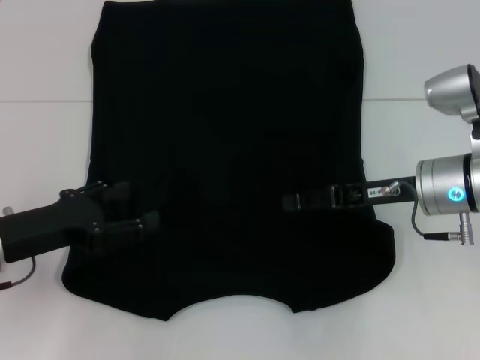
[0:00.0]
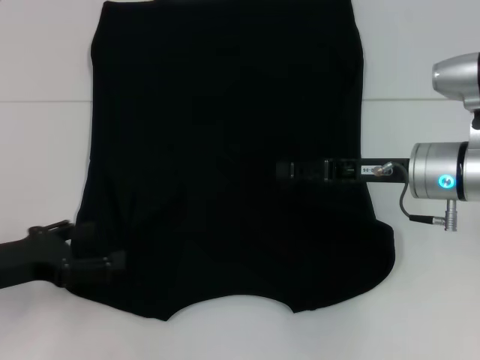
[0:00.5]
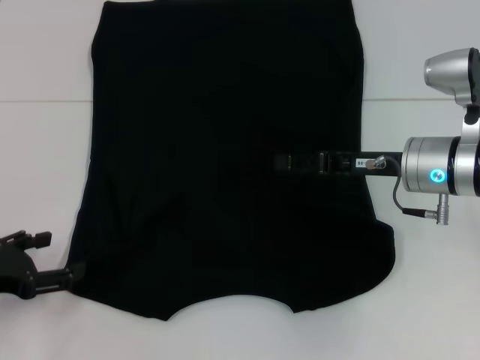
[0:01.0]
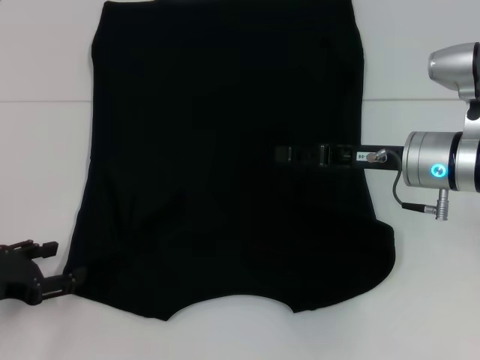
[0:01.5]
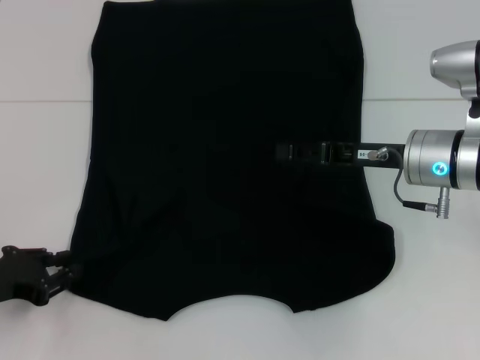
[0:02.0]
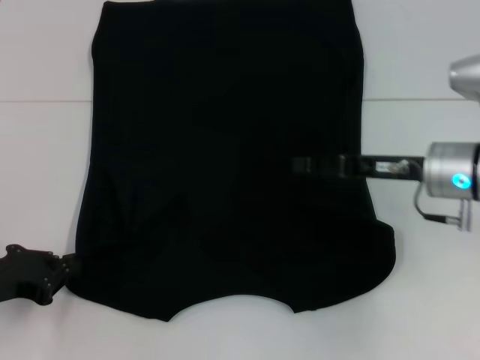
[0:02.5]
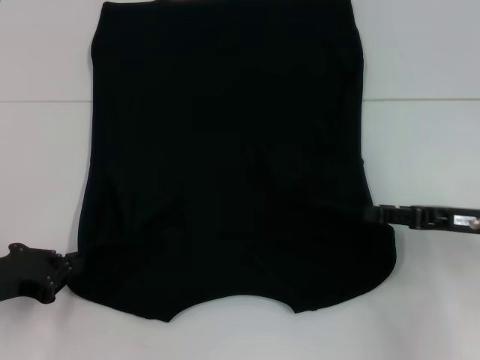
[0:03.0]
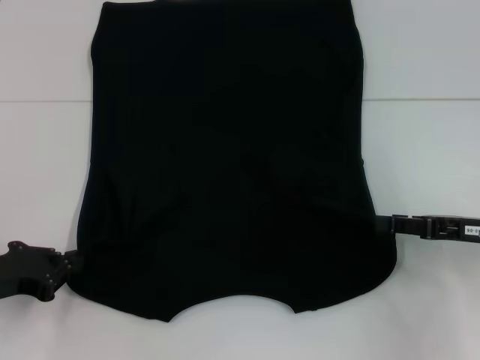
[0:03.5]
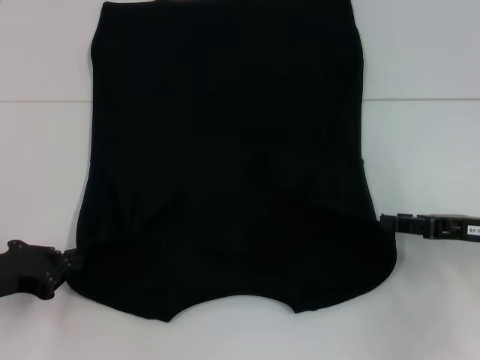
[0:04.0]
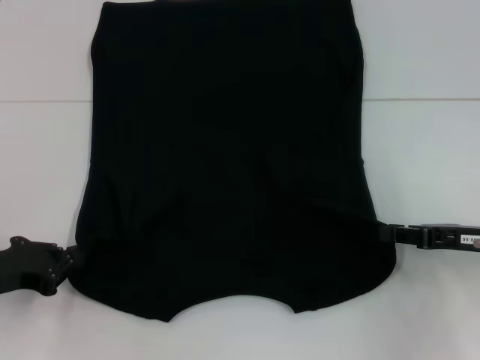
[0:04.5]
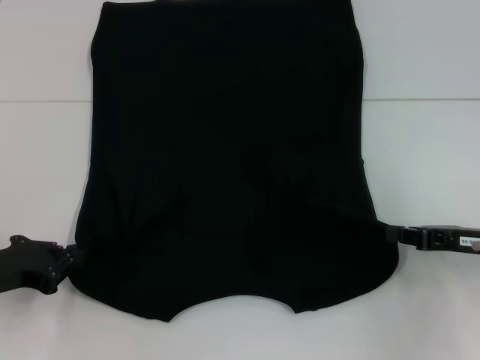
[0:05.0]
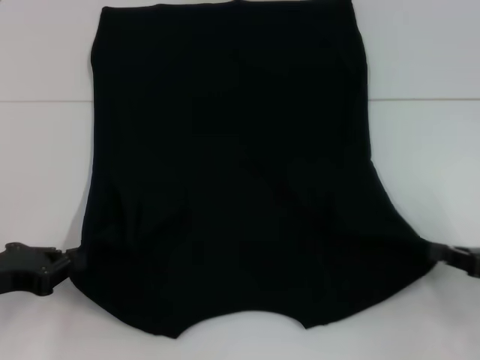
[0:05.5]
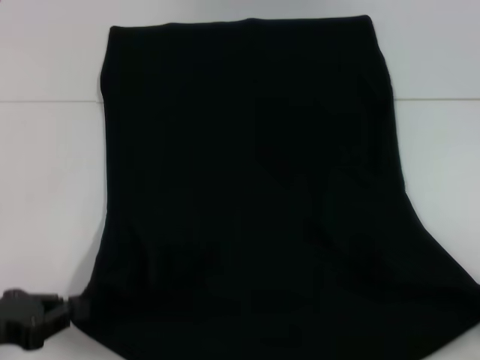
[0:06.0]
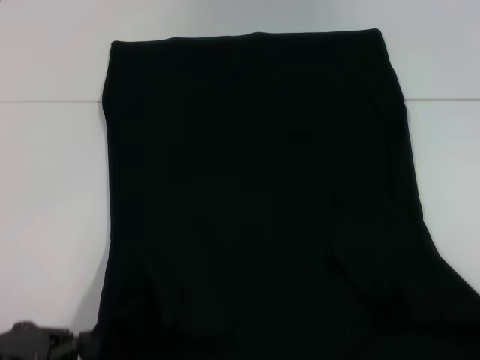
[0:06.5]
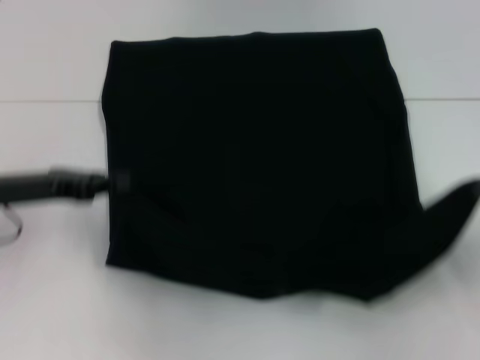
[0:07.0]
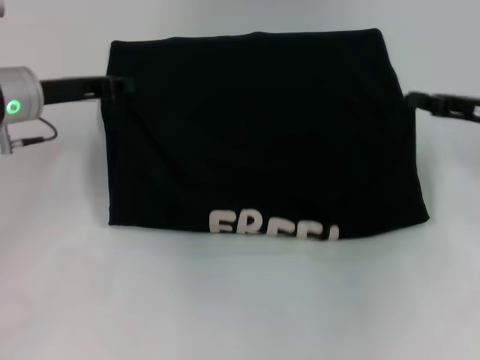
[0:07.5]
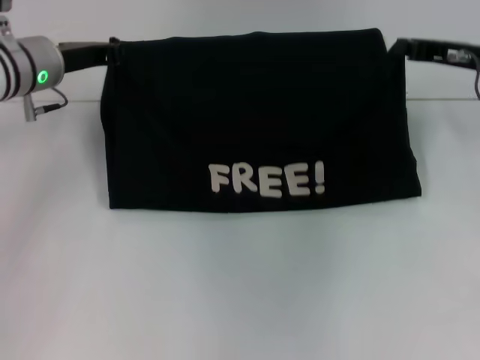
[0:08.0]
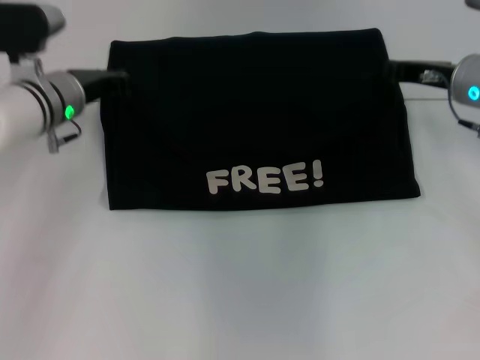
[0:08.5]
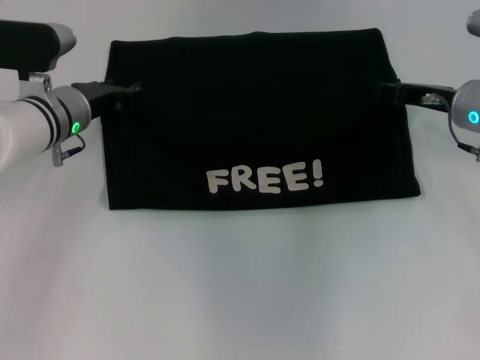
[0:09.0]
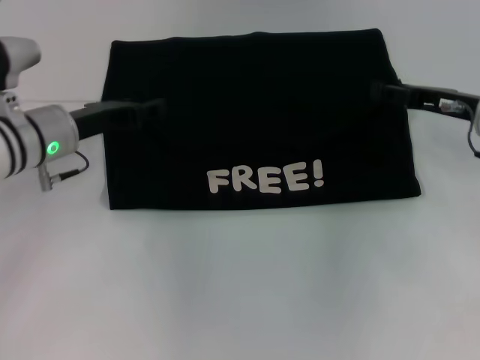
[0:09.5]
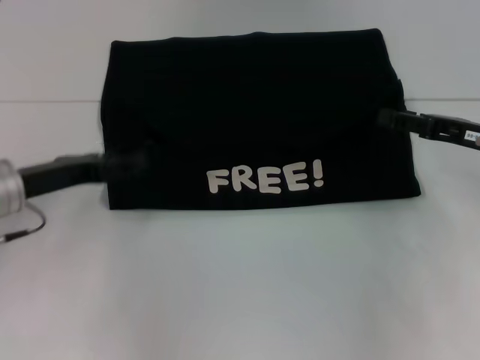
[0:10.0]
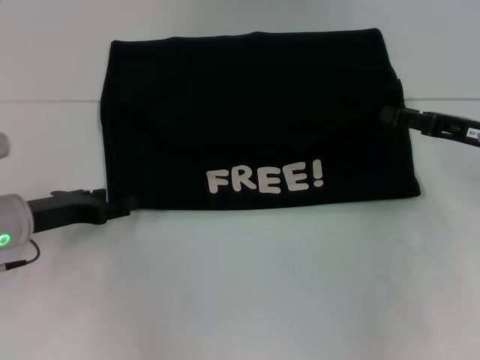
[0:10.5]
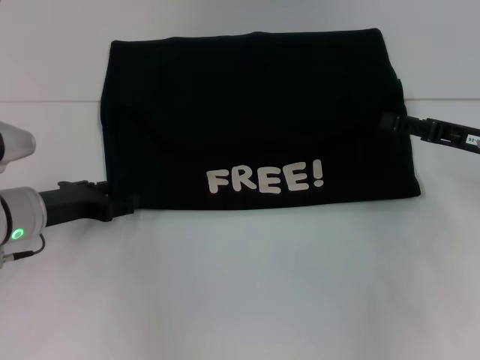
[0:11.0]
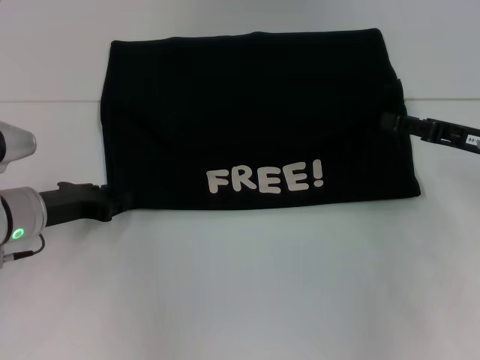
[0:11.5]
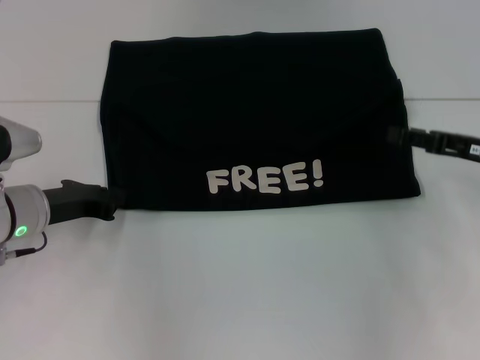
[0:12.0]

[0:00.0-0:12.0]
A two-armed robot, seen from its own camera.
Step, 0:00.5 to 0:02.5: Grab the bottom left corner with your left hand.
Step, 0:03.0 to 0:05.0: Grab the bottom right corner with your right hand.
Step, 0:05.5 to 0:09.0: Fold the clothes with your left hand.
Step, 0:05.5 to 0:09.0: Fold the clothes with your right hand.
0:00.0 to 0:02.0: The left gripper shifts by roughly 5 cm, and closes.
0:02.0 to 0:04.0: The left gripper closes, while the right gripper travels to the right and backward by roughly 15 cm.
0:04.0 to 0:06.0: The left gripper is displaced backward by some 5 cm, while the right gripper goes some 15 cm backward and to the right, and closes its fingers.
0:06.0 to 0:08.0: The right gripper moves forward, to the left and upward, roughly 30 cm; the left gripper heads forward, covering roughly 25 cm.
0:08.0 to 0:10.0: The left gripper travels backward and downward by some 15 cm, and opens its fingers; the right gripper heads backward, covering roughly 10 cm, and opens.
0:10.0 to 0:12.0: The left gripper closes its fingers.

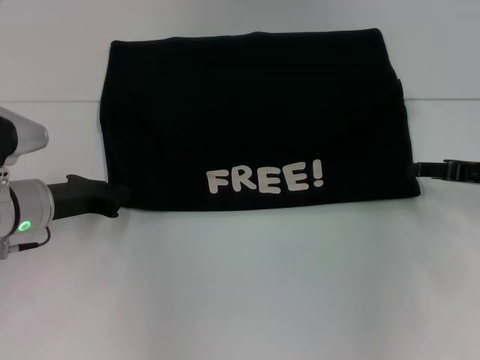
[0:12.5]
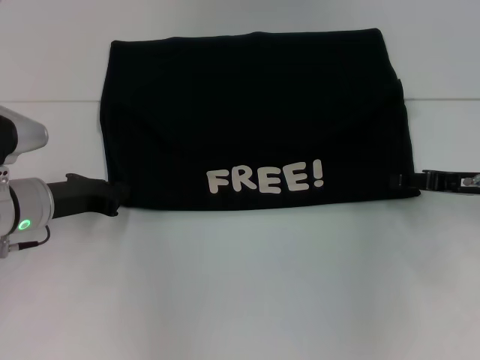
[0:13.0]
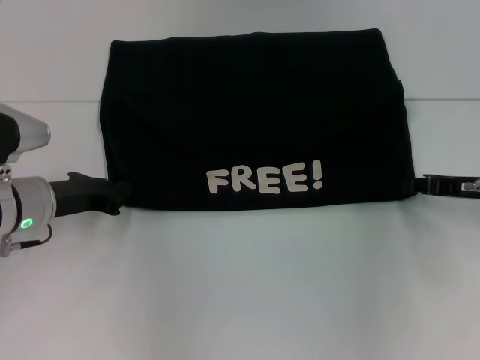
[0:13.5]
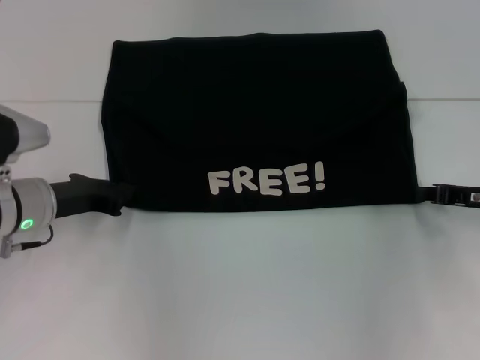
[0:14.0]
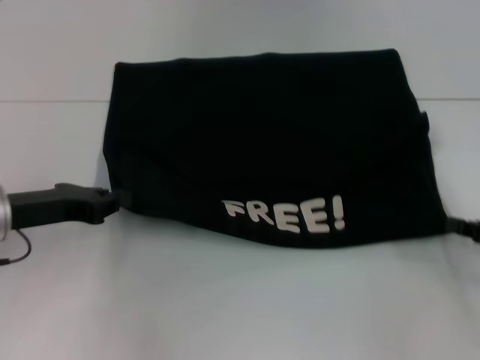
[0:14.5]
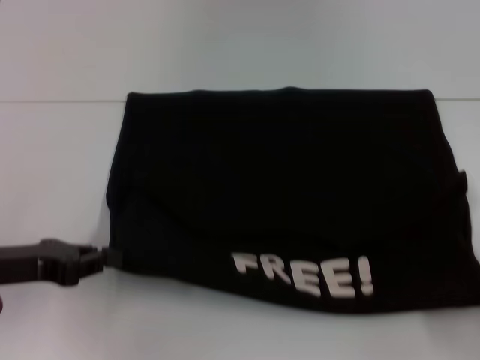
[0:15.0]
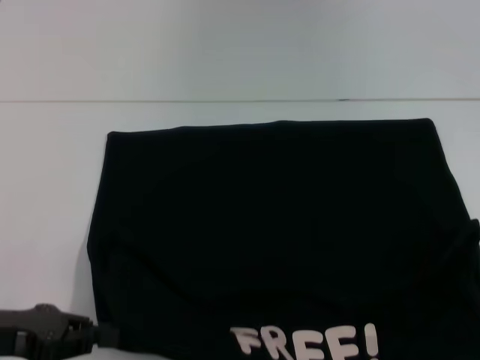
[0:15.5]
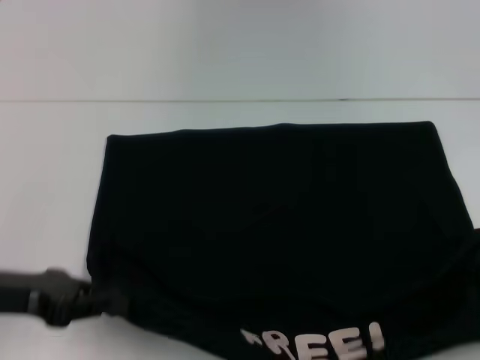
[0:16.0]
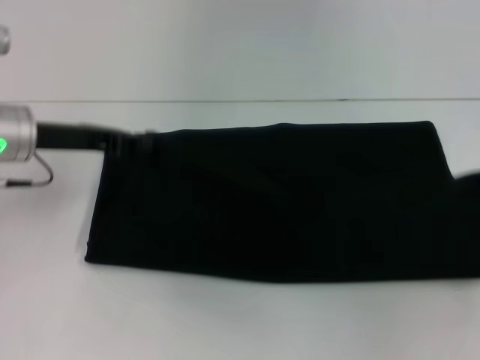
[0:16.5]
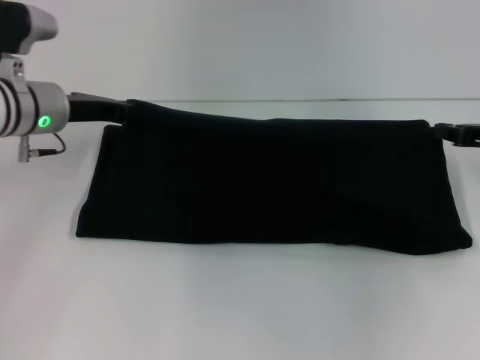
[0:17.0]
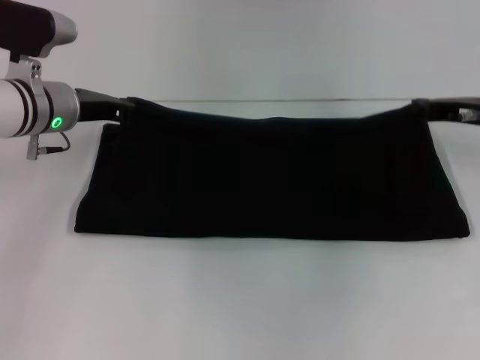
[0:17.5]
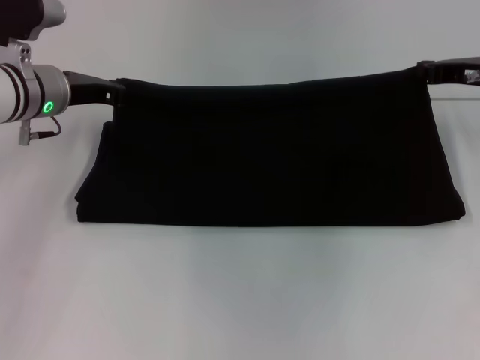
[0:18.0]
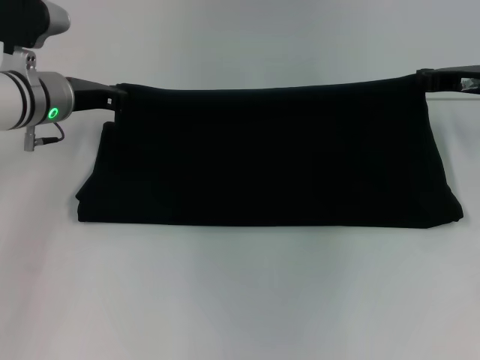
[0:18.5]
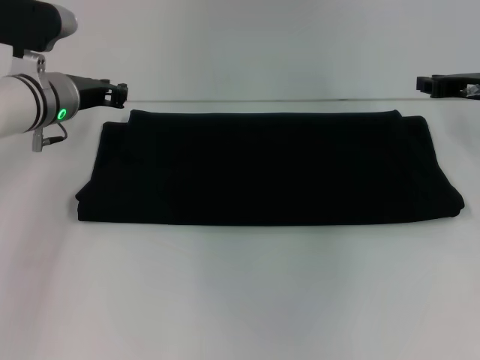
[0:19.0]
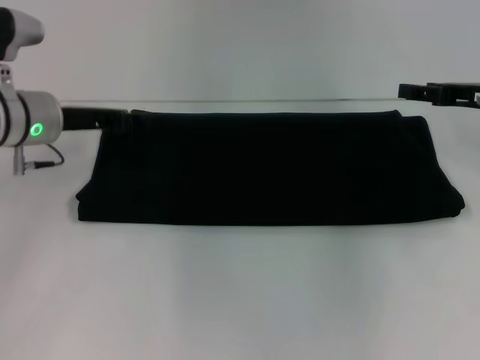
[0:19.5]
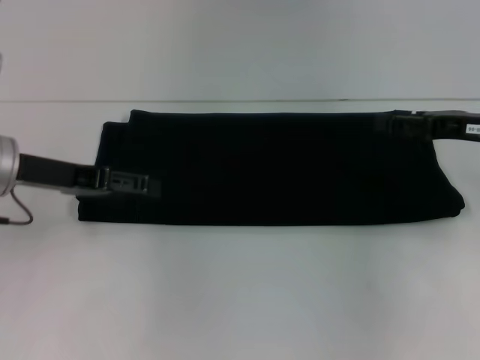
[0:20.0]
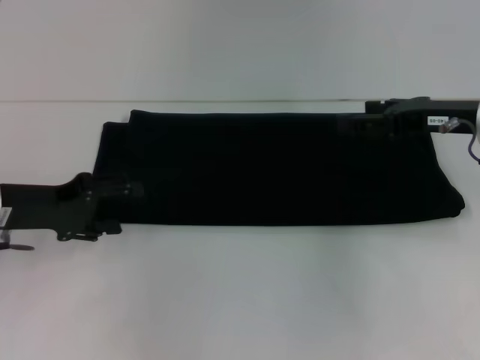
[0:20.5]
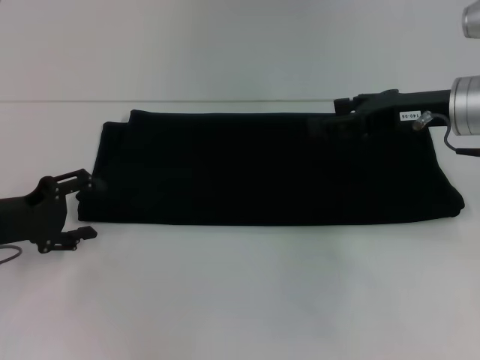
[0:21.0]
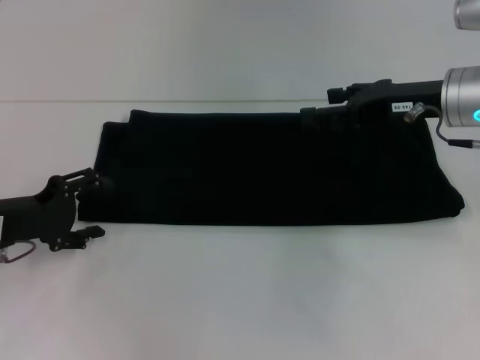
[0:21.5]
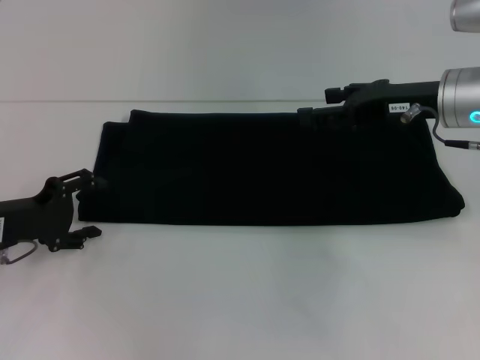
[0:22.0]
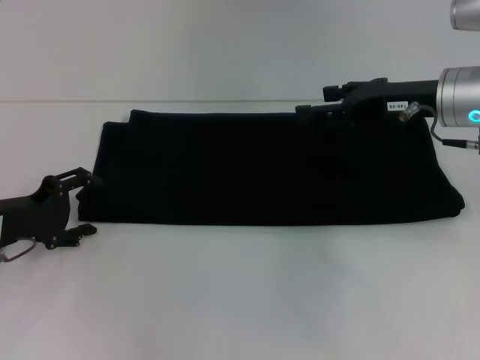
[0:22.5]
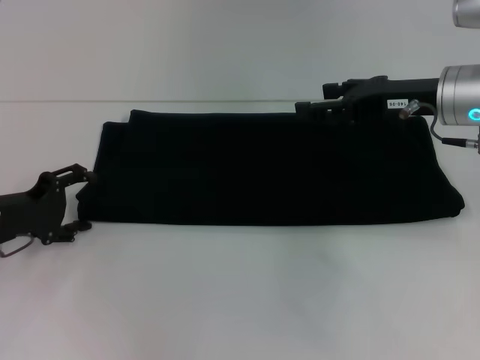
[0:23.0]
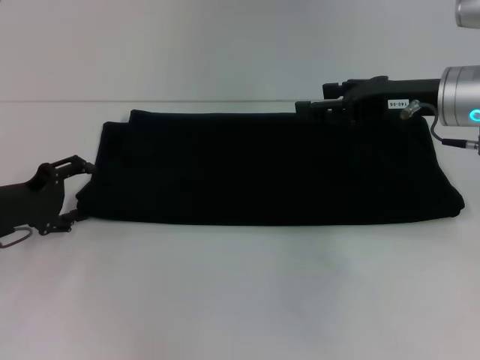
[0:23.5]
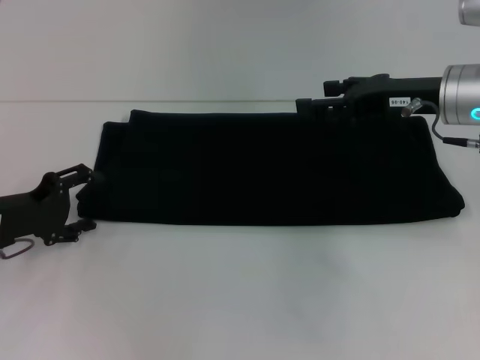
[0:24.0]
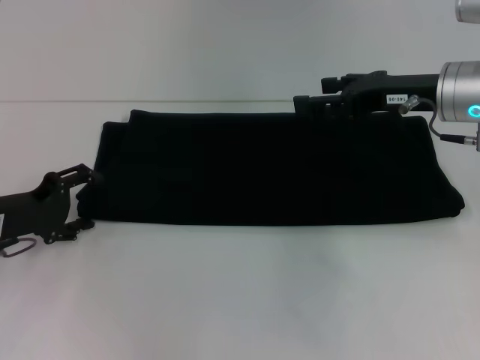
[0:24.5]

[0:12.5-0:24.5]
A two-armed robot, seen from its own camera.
Step, 0:12.5 to 0:15.5: Pull the clothes with your left hand.
Step, 0:12.5 to 0:15.5: Pull the clothes with your right hand.
Step, 0:16.0 to 0:18.5: Fold the clothes with your right hand.
0:12.5 to 0:14.5: The left gripper changes place by some 5 cm. The right gripper heads backward, covering roughly 10 cm, and closes its fingers.
0:14.5 to 0:16.5: The right gripper goes about 5 cm upward, and moves some 15 cm backward and comes back. The left gripper travels forward by approximately 5 cm.
0:16.5 to 0:18.5: The left gripper goes about 5 cm forward; the right gripper heads forward and to the left, covering some 20 cm.
0:18.5 to 0:20.5: The right gripper moves about 5 cm, and opens its fingers. Meanwhile the left gripper moves backward and to the left, approximately 15 cm, and opens its fingers.
0:20.5 to 0:22.5: The left gripper shifts by about 5 cm.
0:22.5 to 0:24.5: There are only small adjustments of the grippers.

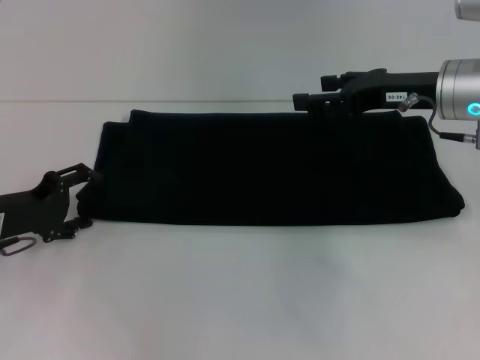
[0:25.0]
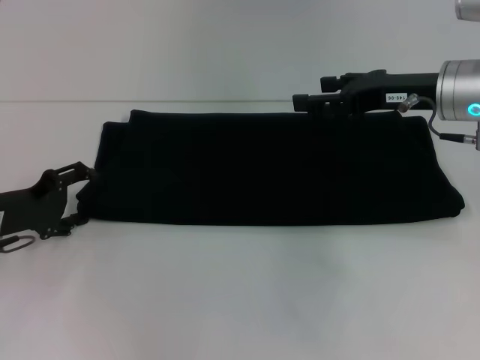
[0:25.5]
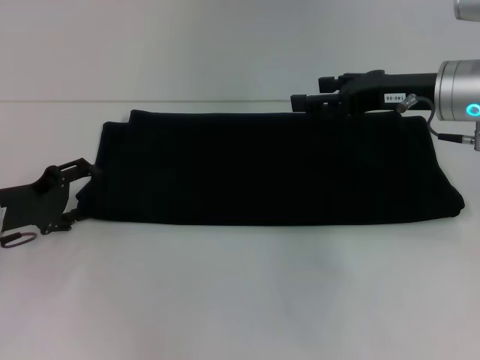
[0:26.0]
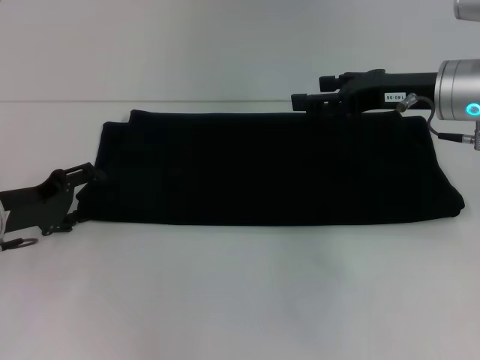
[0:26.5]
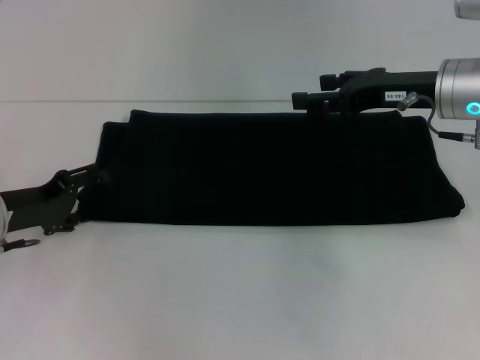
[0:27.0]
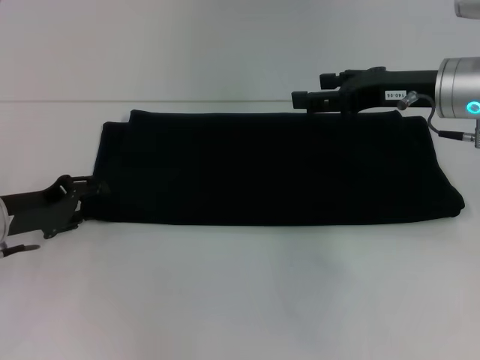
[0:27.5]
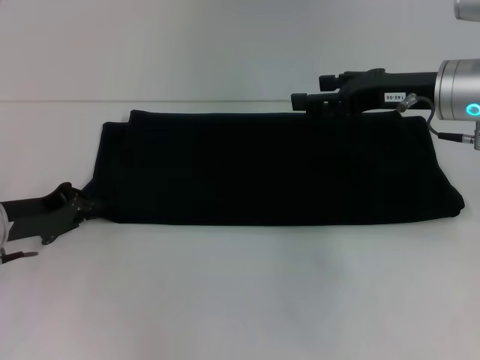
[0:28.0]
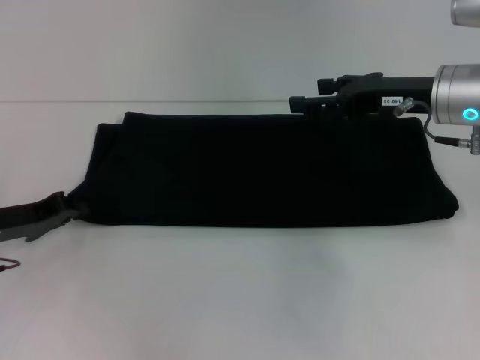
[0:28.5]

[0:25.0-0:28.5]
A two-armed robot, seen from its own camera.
Step, 0:25.0 to 0:27.0: Fold the clothes with your left hand.
0:25.0 to 0:27.0: The grippers move only a little.
0:27.0 to 0:28.5: The left gripper closes its fingers.
